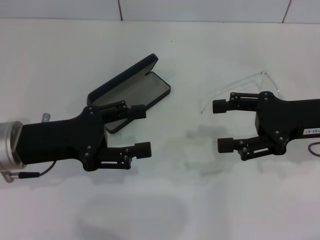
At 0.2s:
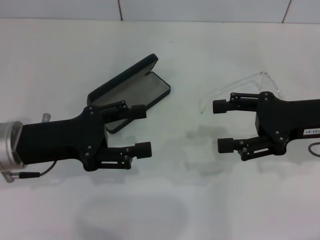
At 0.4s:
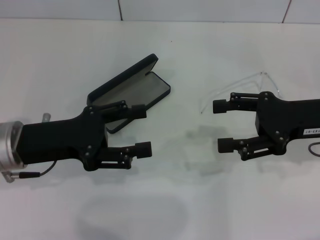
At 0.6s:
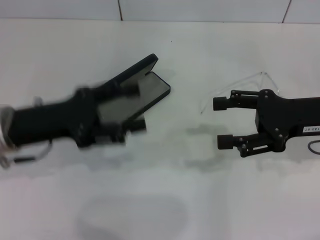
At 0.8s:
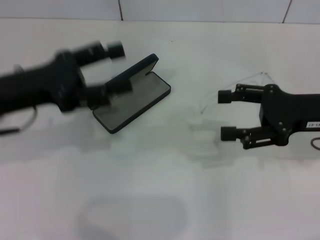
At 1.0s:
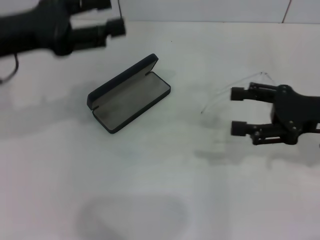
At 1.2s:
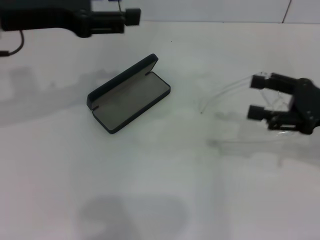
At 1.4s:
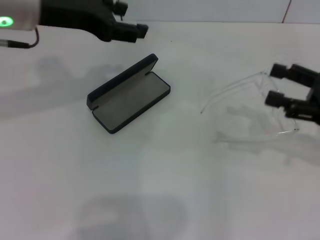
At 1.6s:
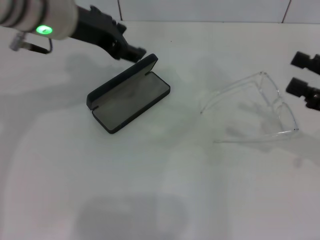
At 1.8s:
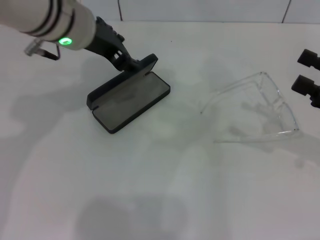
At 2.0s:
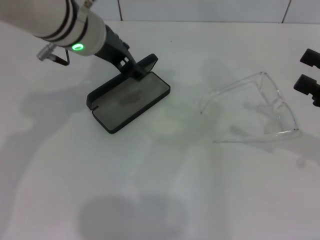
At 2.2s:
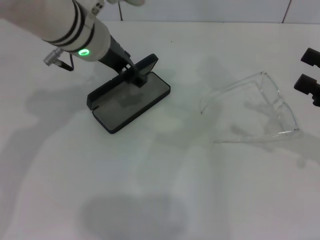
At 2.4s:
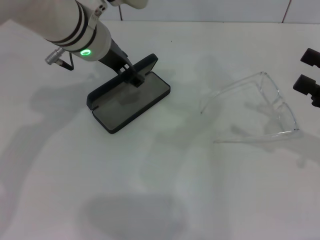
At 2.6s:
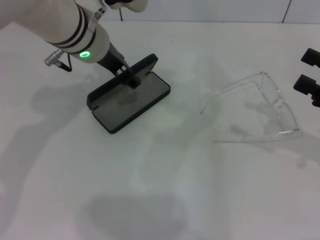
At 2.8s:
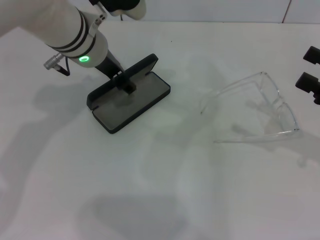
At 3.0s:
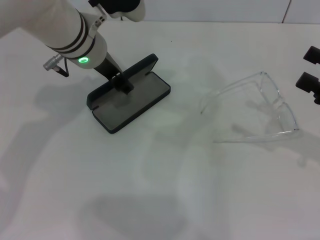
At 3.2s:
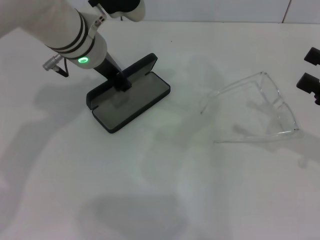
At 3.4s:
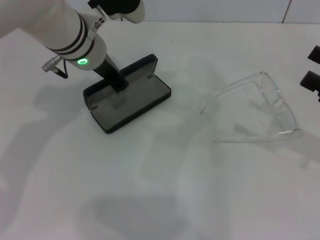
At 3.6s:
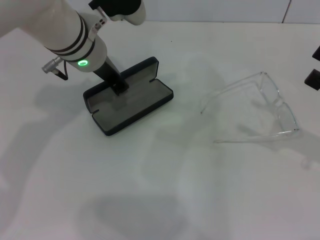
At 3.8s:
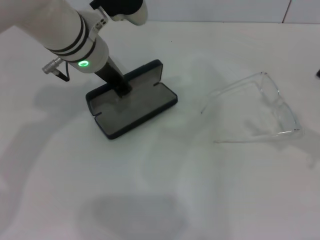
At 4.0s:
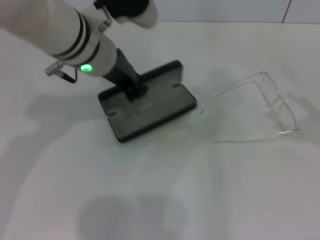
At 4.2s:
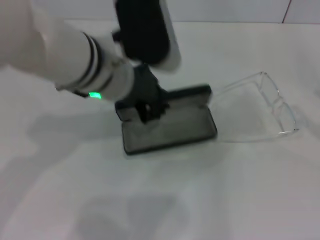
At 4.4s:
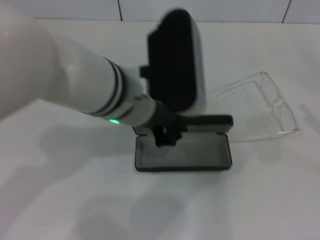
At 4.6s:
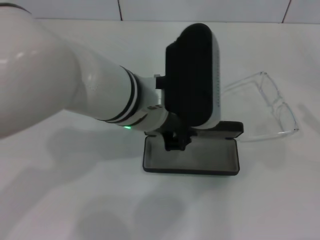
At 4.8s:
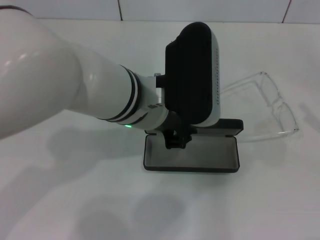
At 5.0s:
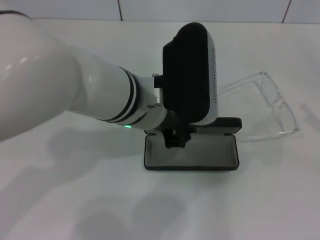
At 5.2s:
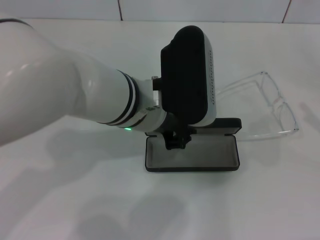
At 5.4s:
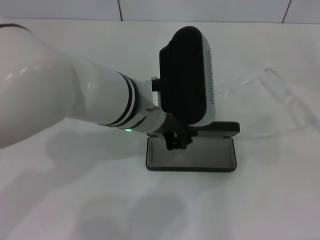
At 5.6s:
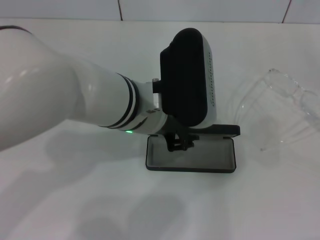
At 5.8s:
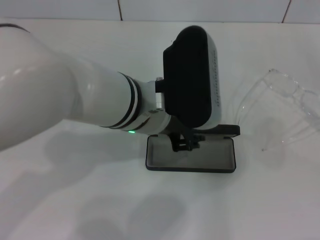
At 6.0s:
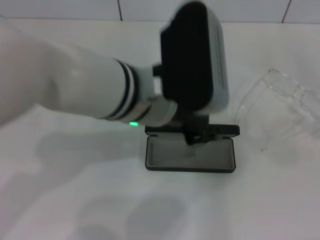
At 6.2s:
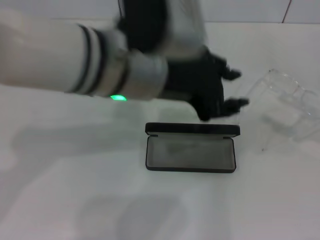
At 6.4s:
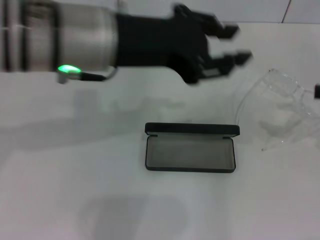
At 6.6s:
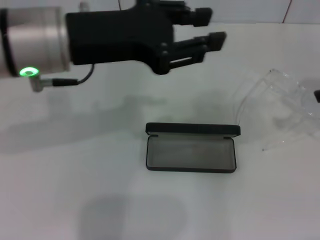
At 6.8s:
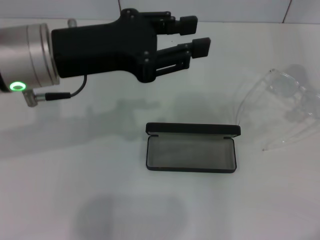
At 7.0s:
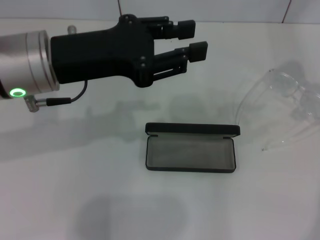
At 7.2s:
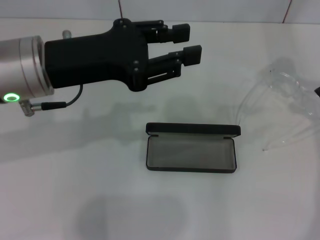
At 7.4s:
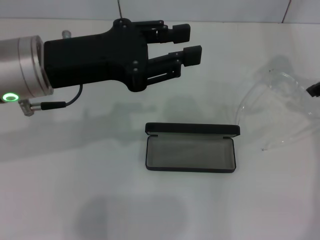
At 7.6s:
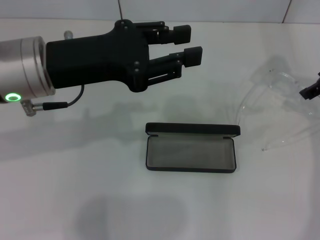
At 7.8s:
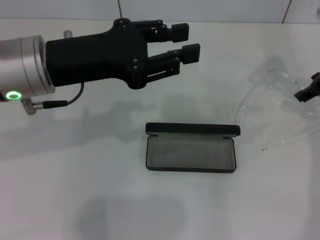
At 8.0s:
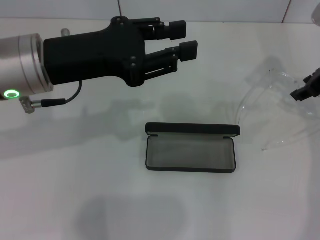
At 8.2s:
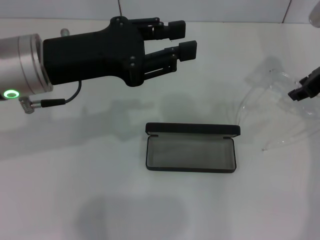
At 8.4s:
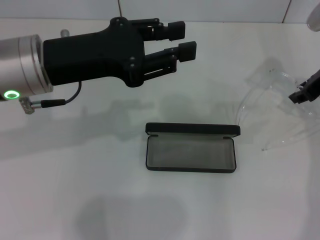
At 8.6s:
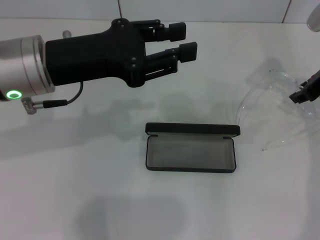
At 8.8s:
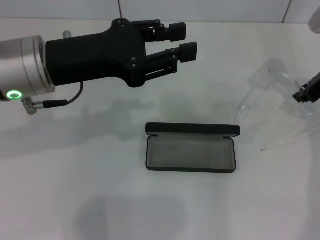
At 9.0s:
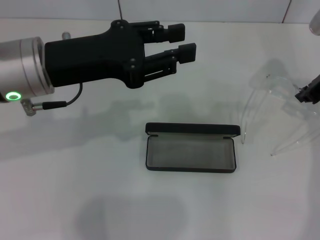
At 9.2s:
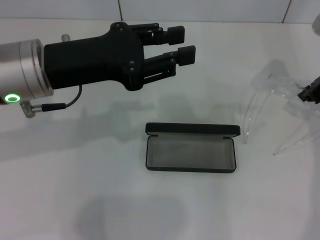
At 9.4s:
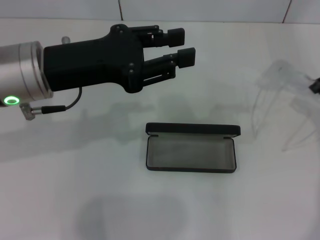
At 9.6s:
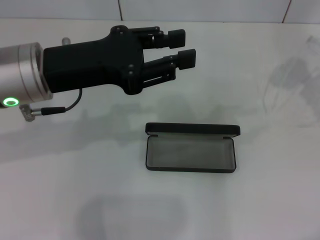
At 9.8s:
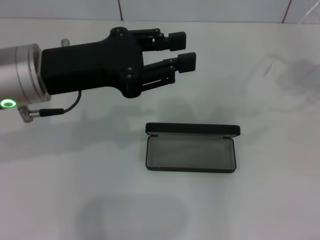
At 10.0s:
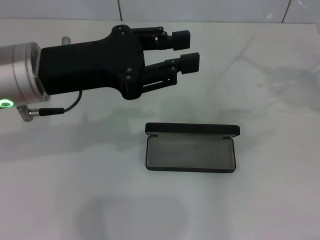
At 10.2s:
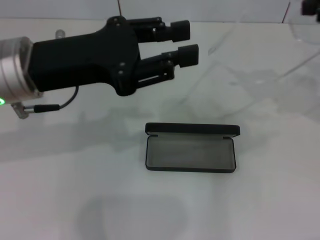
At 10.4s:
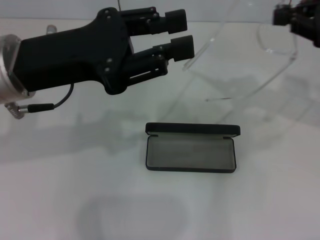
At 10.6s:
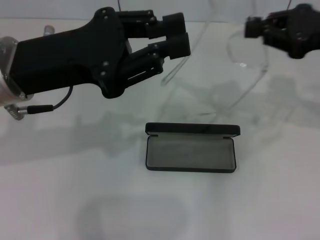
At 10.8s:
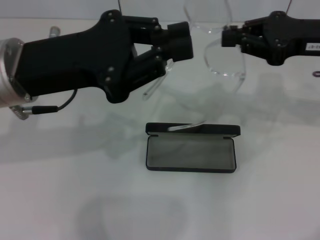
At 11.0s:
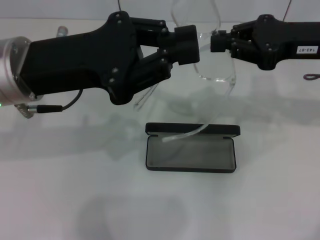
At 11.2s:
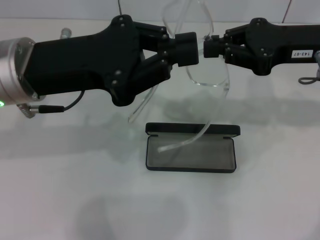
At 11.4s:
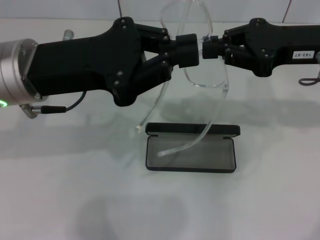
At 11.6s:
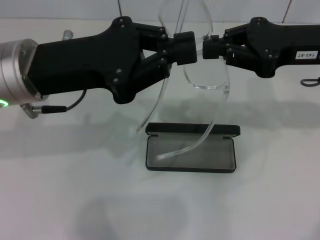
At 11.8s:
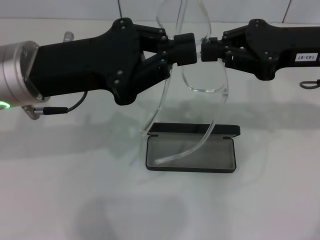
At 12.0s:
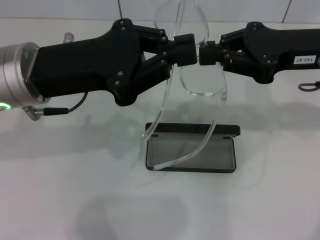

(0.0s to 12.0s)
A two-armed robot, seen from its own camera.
Step, 0.0s - 3.2s: Grab the glasses case with your left hand.
Step, 3.4s - 5.8s: Place the glasses case in the center of the table with your left hand.
Step, 6.0s - 9.0s: Grab the eyeglass frame with your right hand.
0.0s - 1.6s: The left gripper moves upward, forward and to the right, about 20 cm; the right gripper shifts approximately 10 cm to the right.
1.6s - 3.0s: The left gripper goes about 5 cm downward.
3.0s - 4.4s: The left gripper shifts about 10 cm backward and to the right, and closes its fingers. The right gripper is displaced to the right by some 5 cm.
4.4s - 6.0s: The grippers make only small movements.
6.0s - 7.6s: The left gripper is displaced to the left by approximately 15 cm. The right gripper goes approximately 20 cm forward, to the left and upward.
7.6s - 9.0s: The right gripper closes.
9.0s - 10.4s: The right gripper heads backward and upward, covering roughly 10 cm.
10.4s - 12.0s: The left gripper closes. Meanwhile the right gripper moves to the left, roughly 5 cm.

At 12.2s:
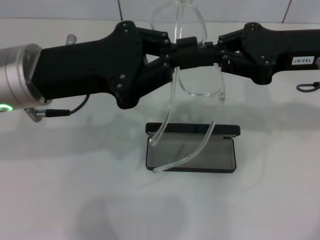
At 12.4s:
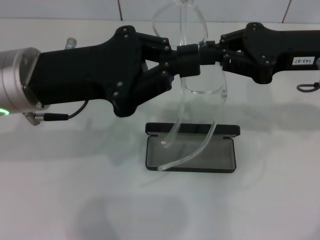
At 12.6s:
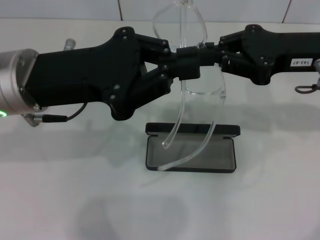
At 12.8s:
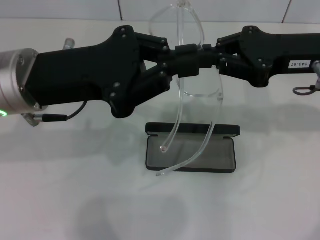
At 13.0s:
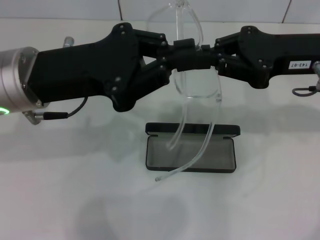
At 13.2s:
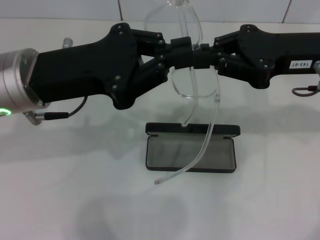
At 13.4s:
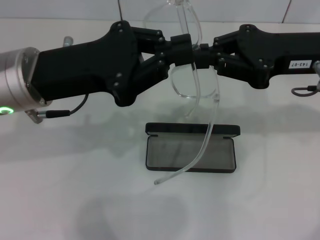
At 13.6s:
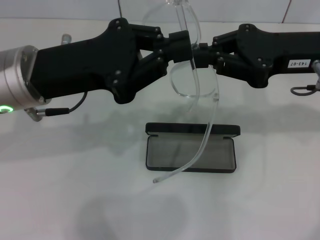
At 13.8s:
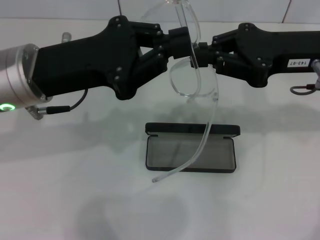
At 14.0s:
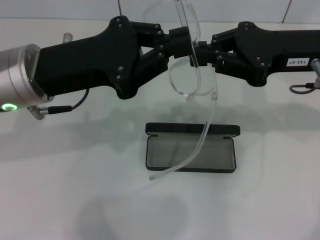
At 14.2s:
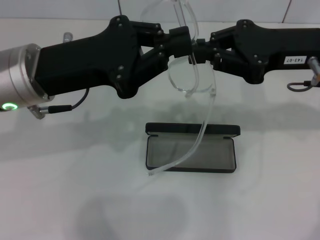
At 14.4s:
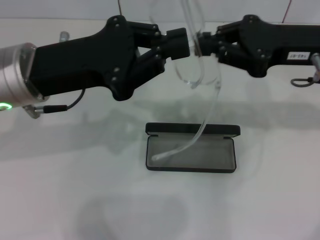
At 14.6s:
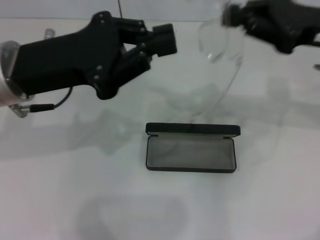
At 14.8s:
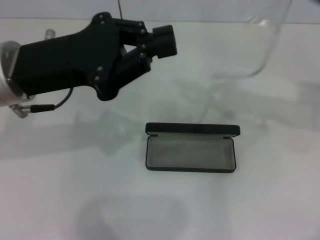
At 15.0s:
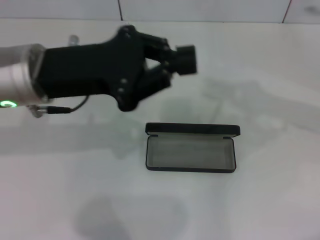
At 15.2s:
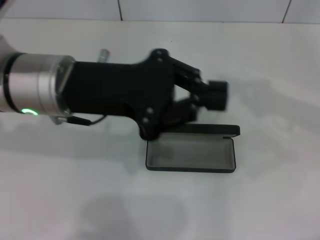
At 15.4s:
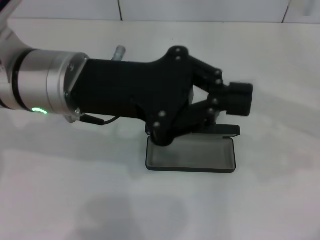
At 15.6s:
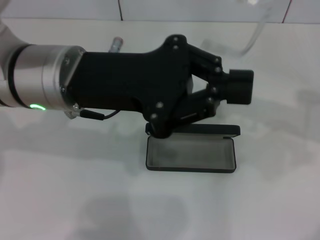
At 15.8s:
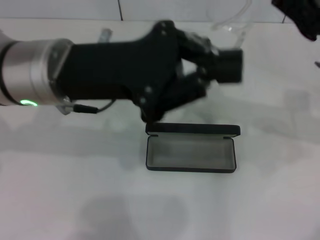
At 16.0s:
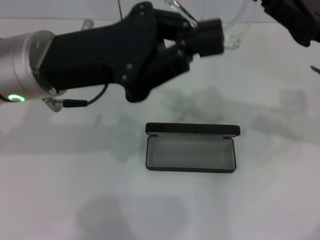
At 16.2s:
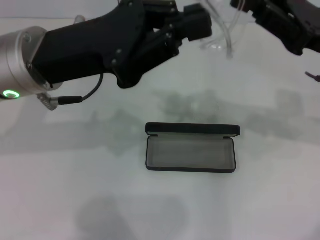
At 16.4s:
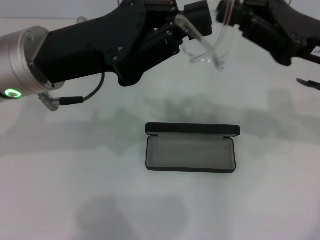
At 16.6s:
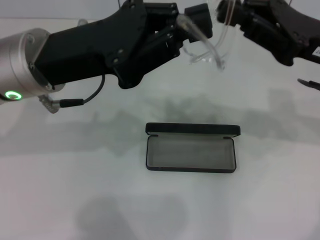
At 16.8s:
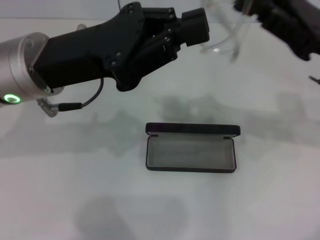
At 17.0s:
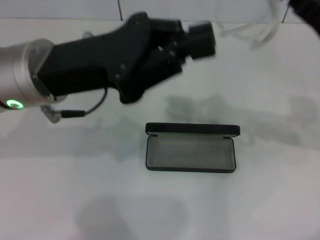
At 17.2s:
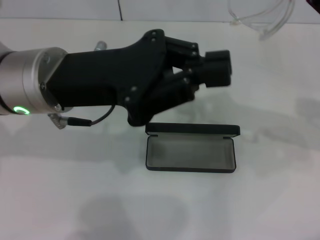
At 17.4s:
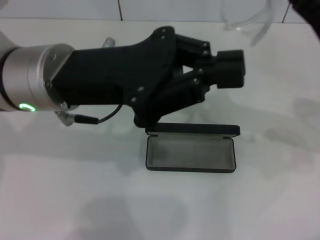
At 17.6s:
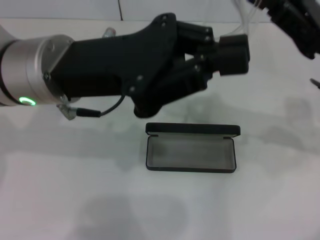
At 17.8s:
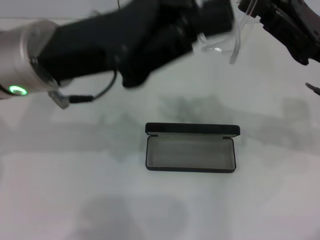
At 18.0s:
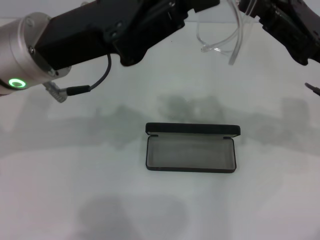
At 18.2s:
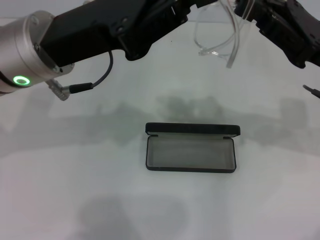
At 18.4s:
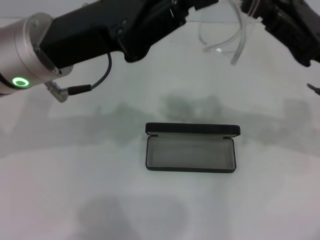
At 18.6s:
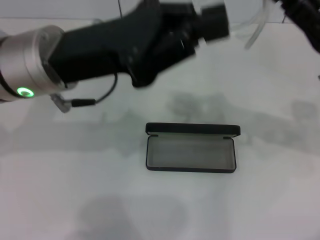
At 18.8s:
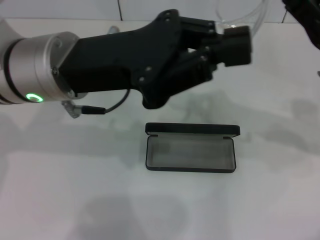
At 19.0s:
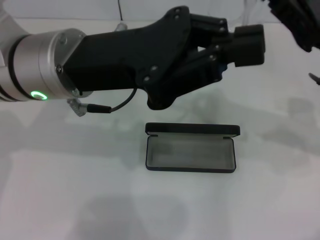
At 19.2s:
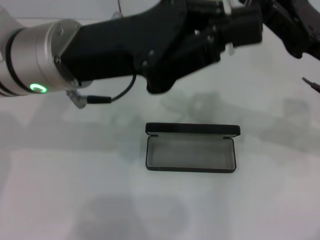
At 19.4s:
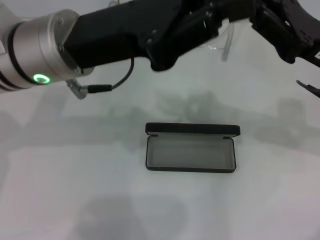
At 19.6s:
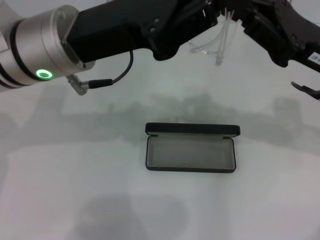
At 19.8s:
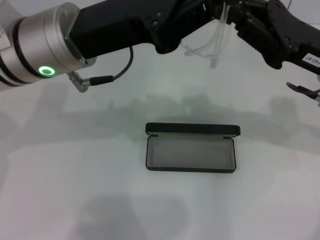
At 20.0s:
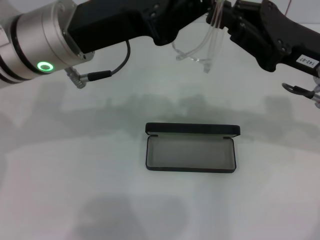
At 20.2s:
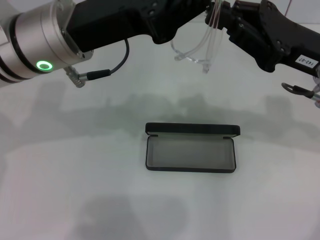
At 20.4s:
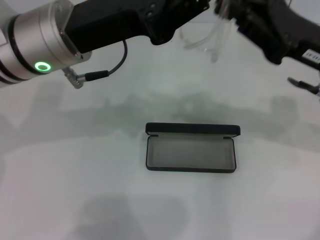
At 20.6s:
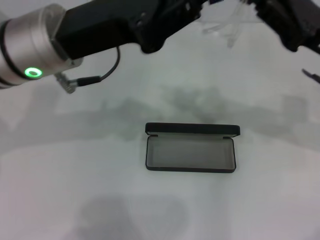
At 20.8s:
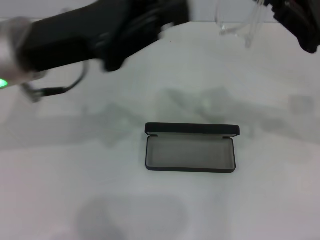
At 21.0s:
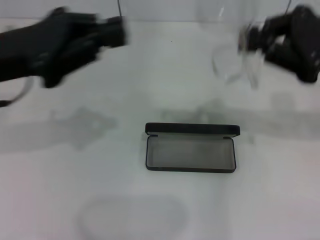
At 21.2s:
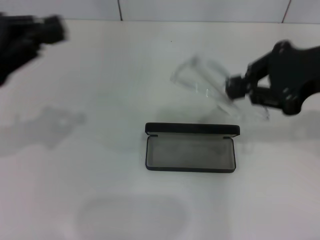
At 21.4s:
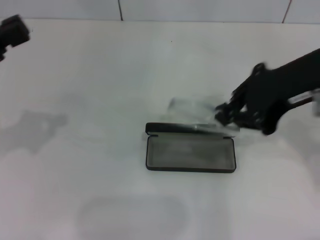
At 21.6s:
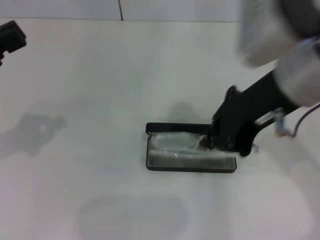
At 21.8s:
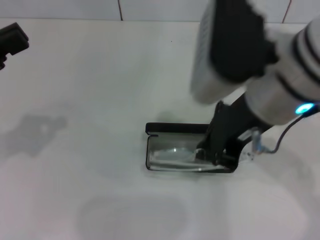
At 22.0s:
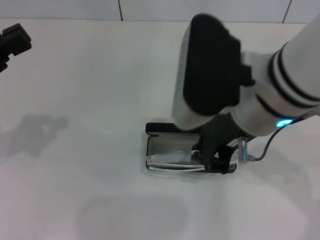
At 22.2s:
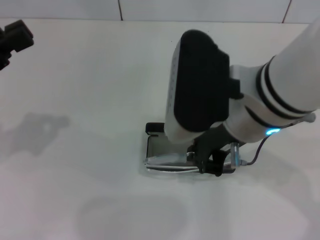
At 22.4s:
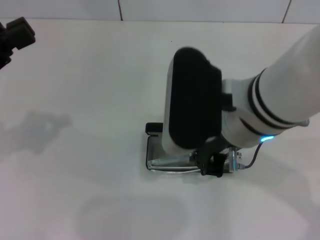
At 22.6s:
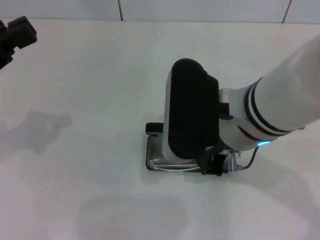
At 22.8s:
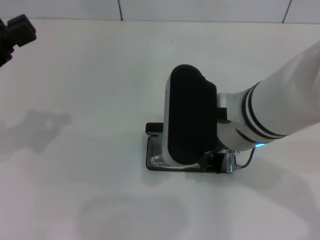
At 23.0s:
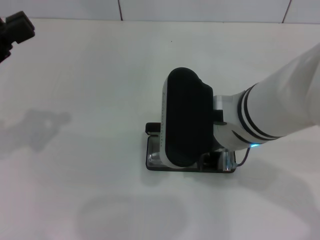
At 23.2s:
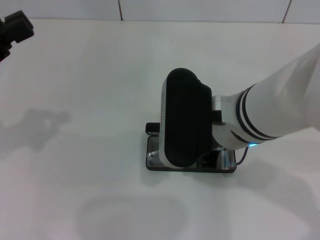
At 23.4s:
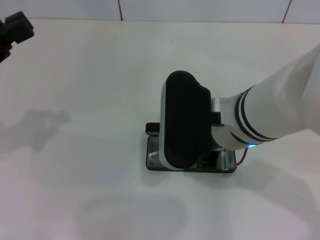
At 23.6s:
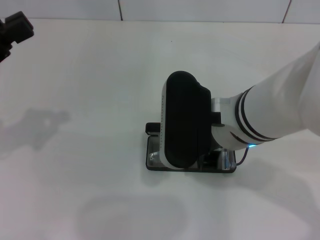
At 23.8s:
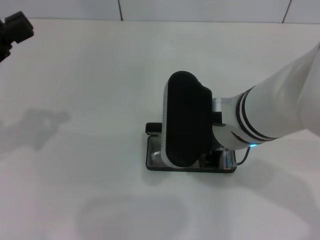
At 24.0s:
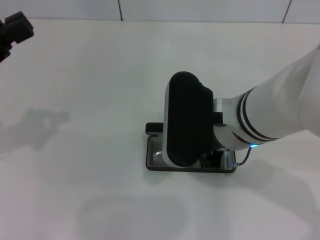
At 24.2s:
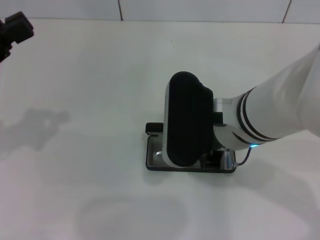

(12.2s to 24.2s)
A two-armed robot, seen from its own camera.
Step, 12.2s - 20.6s: Fold the frame with your left hand.
12.2s - 13.8s: Neither gripper changes place.
13.8s - 15.2s: The right gripper moves to the right, roughly 10 cm.
15.2s - 16.6s: The right gripper is displaced to the left by some 10 cm.
16.6s - 19.8s: The grippers stay close to where they were, moving slightly.
19.8s - 21.2s: The right gripper goes roughly 10 cm upward, while the left gripper heads to the left, covering about 15 cm.
21.2s - 22.6s: The right gripper goes approximately 15 cm to the left.
22.6s - 24.2s: The grippers make only small movements.
